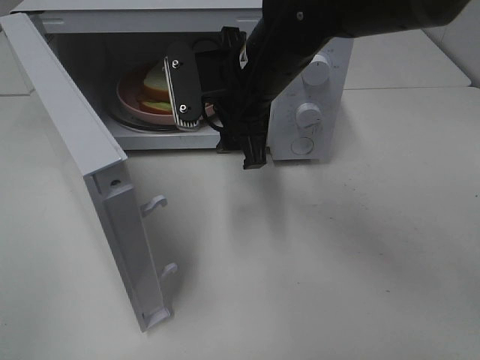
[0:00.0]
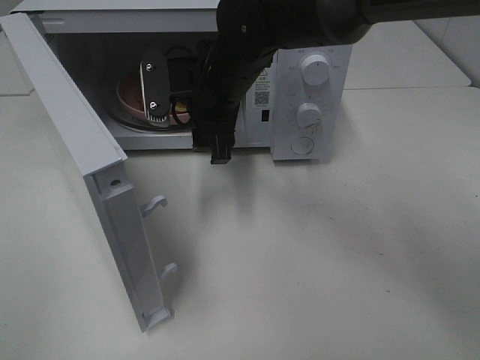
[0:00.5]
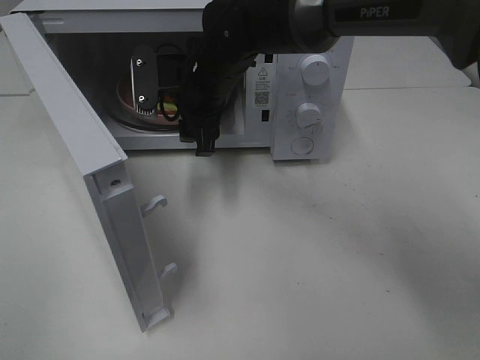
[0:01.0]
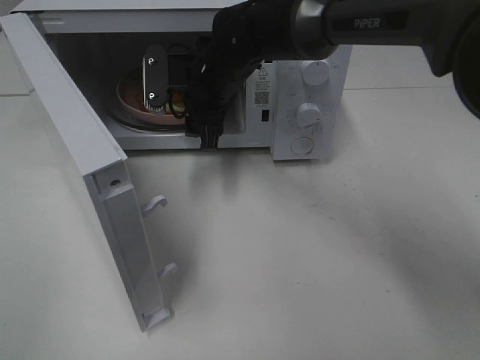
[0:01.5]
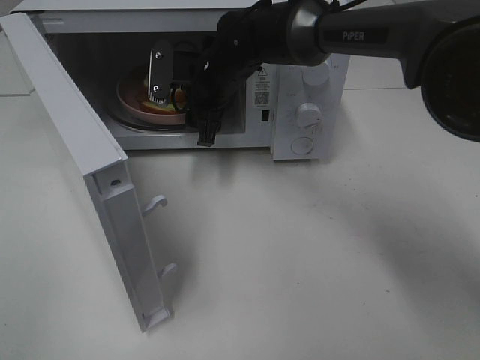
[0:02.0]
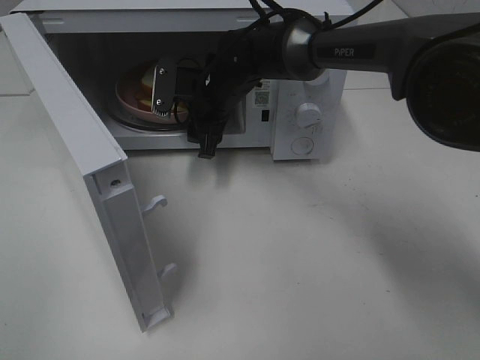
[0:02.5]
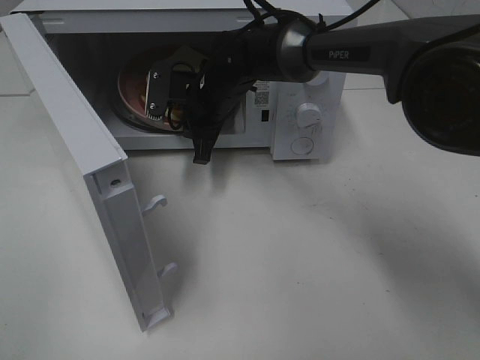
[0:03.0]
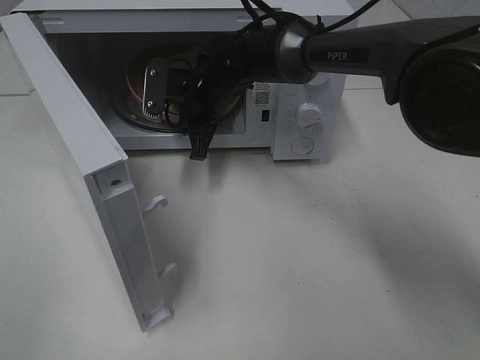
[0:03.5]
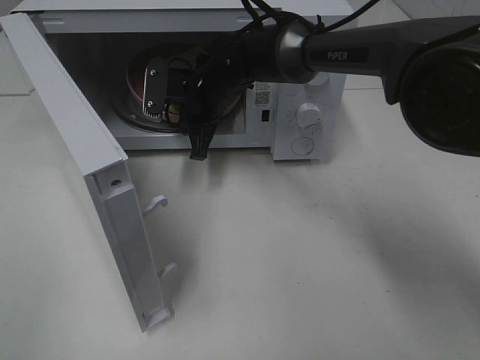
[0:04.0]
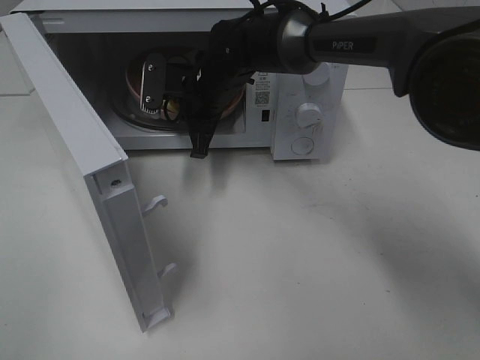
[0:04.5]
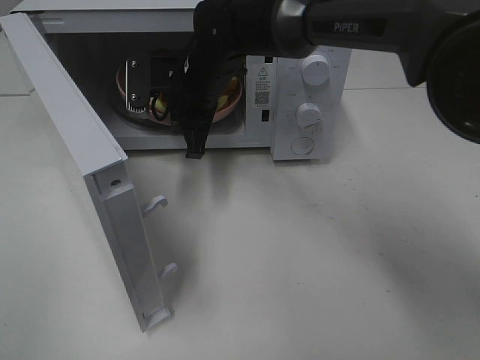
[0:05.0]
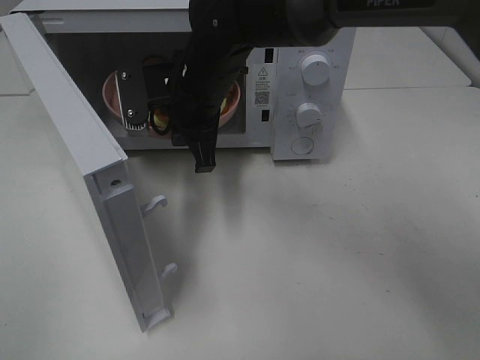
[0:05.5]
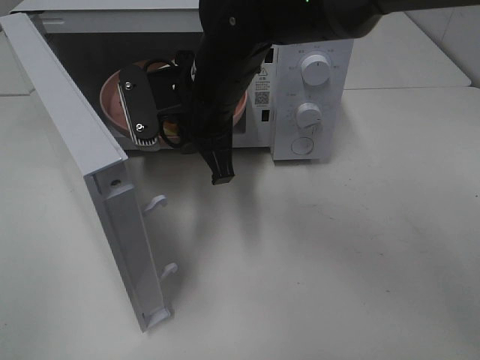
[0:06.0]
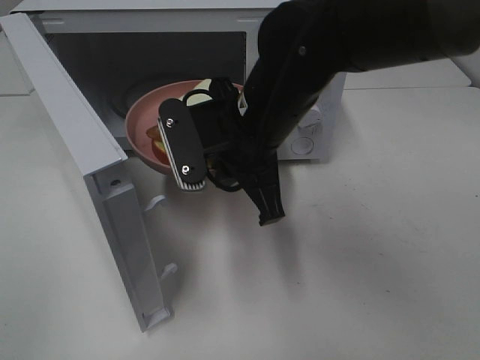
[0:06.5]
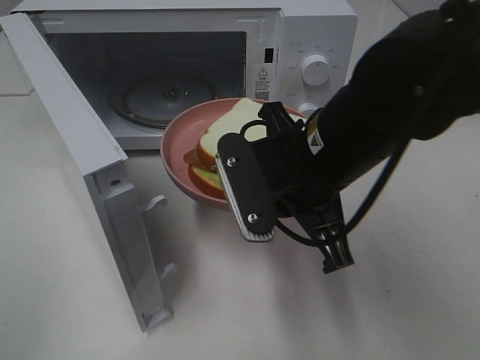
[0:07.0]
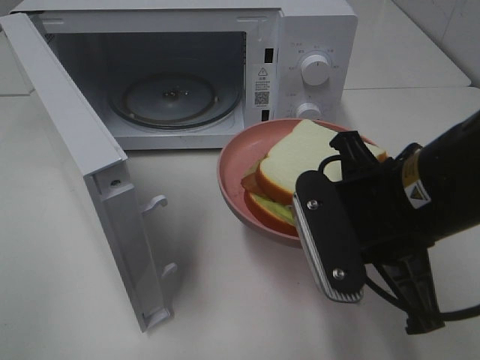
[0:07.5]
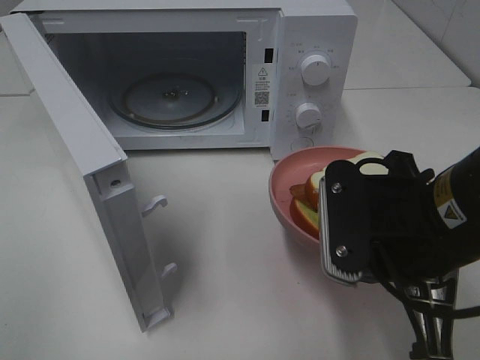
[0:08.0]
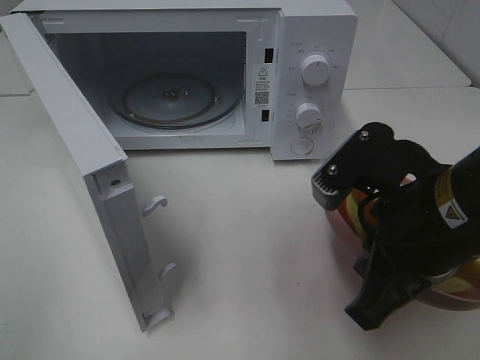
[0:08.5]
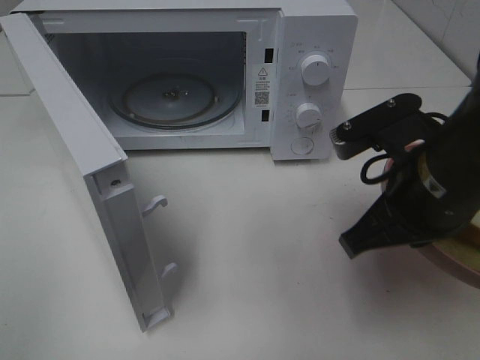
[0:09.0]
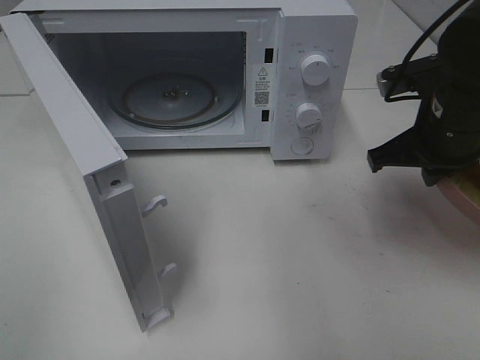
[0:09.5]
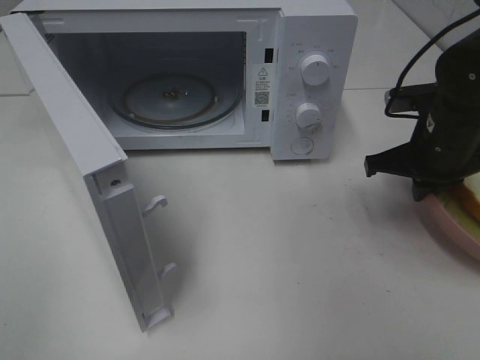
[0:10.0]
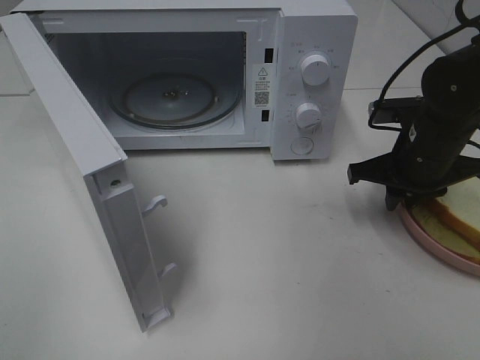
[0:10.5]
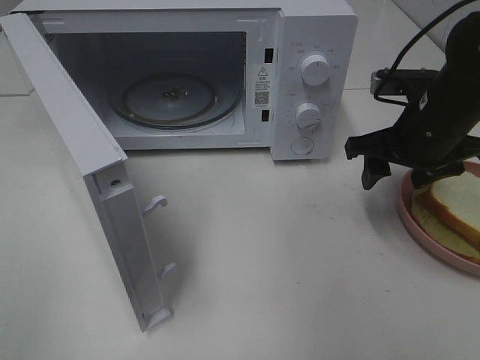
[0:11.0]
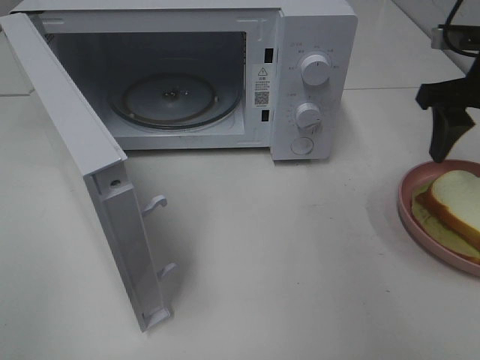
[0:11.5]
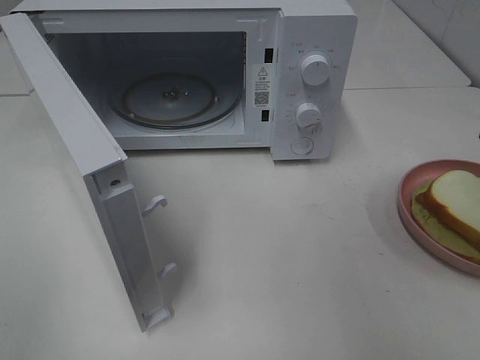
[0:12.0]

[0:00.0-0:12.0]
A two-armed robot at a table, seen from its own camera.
Task of the whole recording: Heat Sandwich.
Step, 0:00.0 to 0:03.5: Right hand: grab the plate with the sandwich.
Step, 0:04.0 to 0:11.0: Right hand: place the plate on the table.
0:00.0 to 0:02.0: The right gripper is displaced forward and downward by roughly 15 cm.
0:02.0 to 0:04.0: The right gripper closes.
0:04.0 to 0:06.0: The right gripper heads backward and upward, covering approximately 15 cm.
0:06.0 to 0:08.0: The right gripper shifts some 25 cm backward and to the right.
0:08.0 to 0:10.0: The right gripper goes roughly 20 cm forward and to the right.
0:10.0 to 0:12.0: The right gripper goes some 15 cm upward, backward and to the right, and opens.

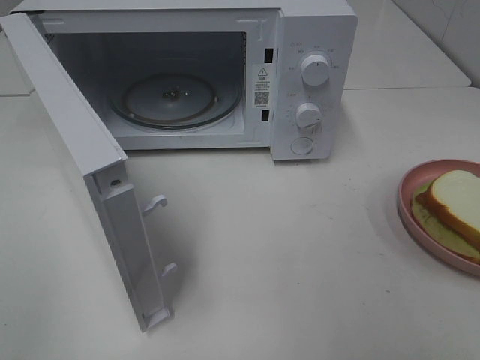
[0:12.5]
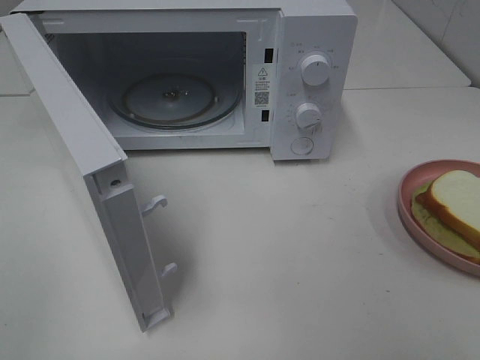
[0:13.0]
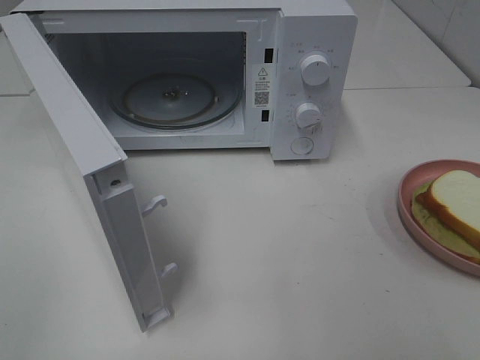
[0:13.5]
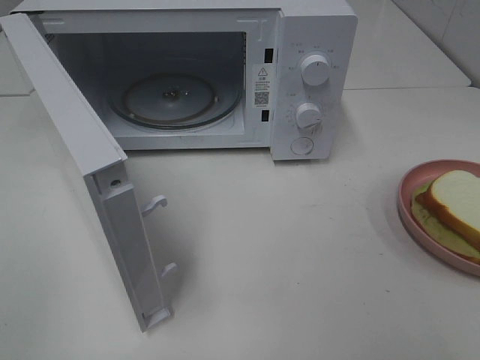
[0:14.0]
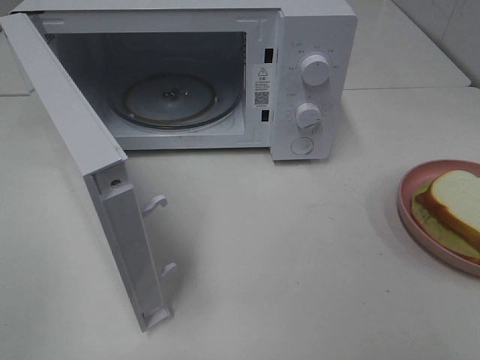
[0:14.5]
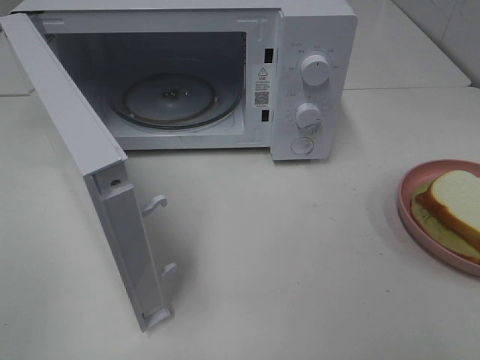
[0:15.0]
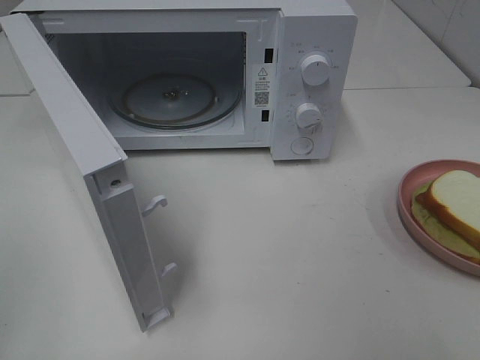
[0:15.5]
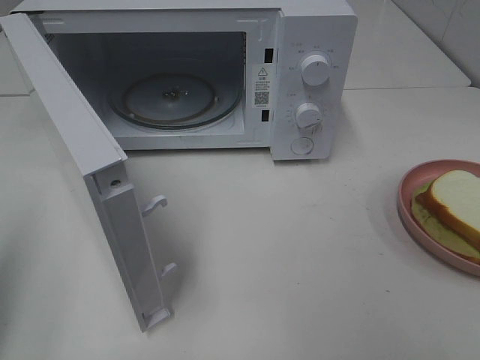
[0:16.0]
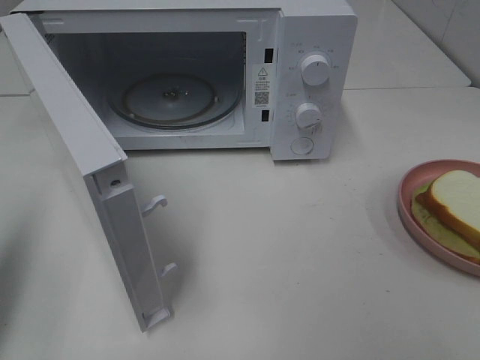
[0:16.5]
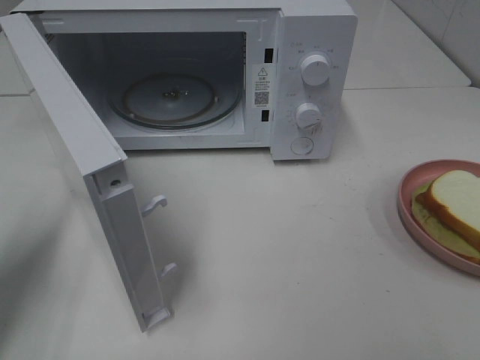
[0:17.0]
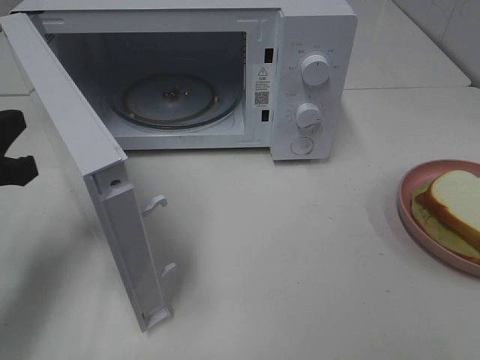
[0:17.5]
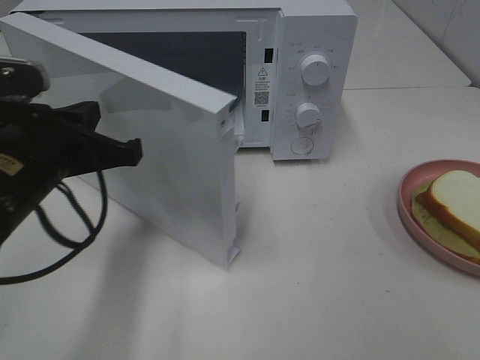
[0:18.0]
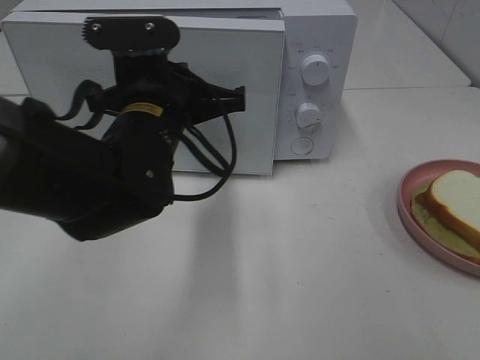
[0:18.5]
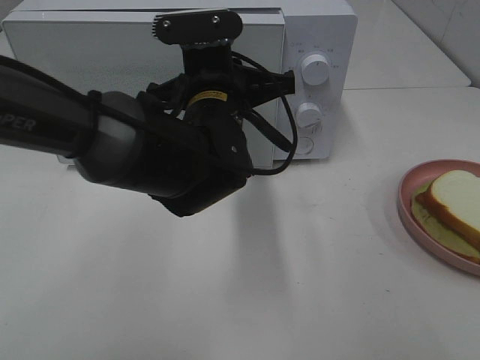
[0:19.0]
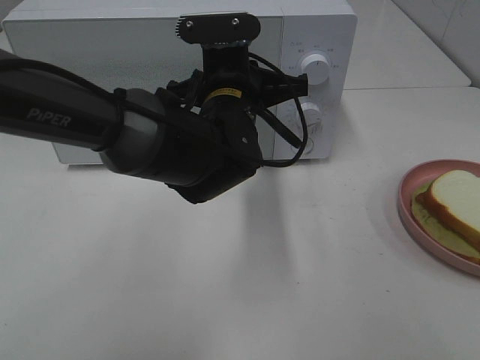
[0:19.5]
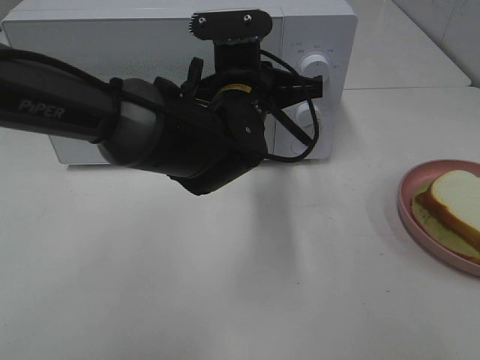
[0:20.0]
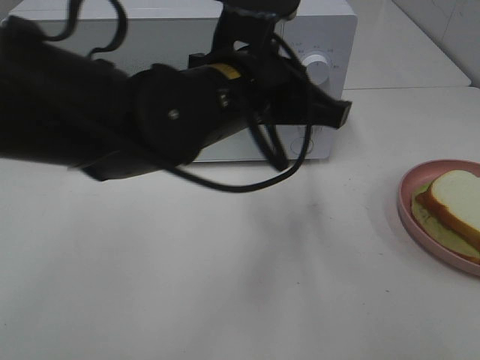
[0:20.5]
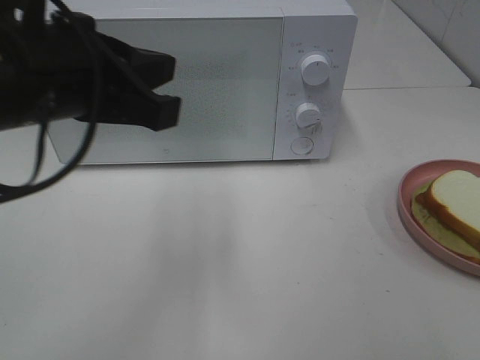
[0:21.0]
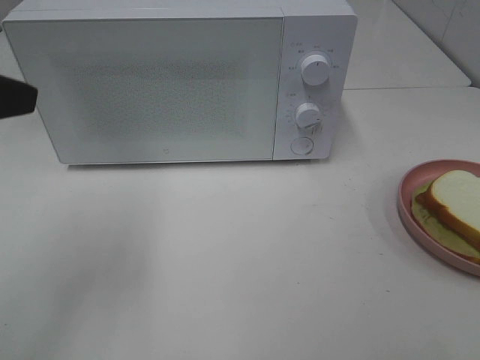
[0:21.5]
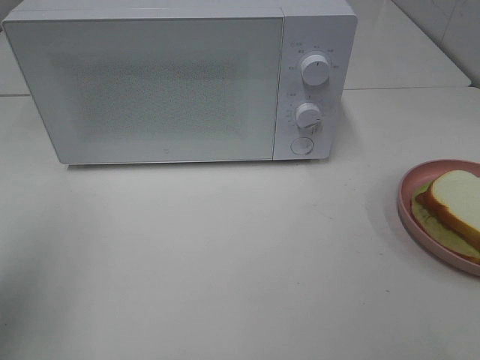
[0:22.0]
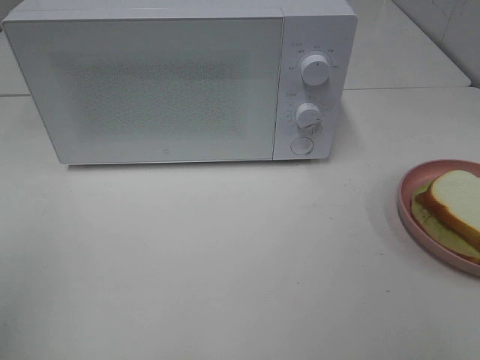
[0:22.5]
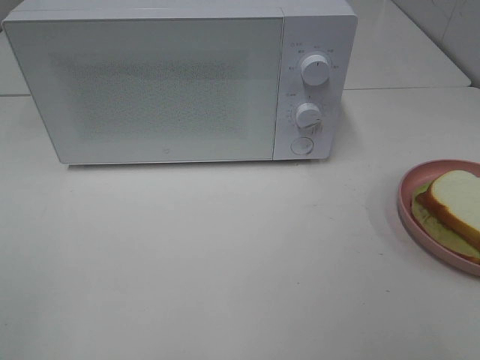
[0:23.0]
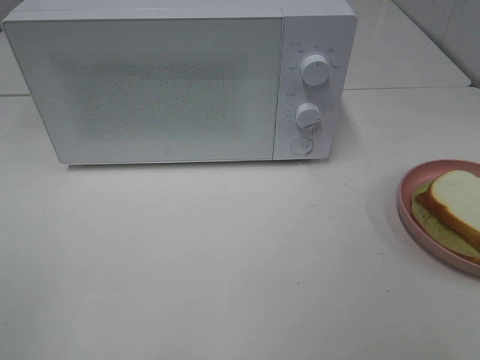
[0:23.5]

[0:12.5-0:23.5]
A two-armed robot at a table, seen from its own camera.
Task of the whole recording: Heat Sandwich.
Step, 0:12.5 to 0:20.5: Left hand: close the microwave door.
0:16.0 to 0:18.0: The left gripper is displaced to the right, forward and downward by approximately 20 cm.
0:18.0 to 0:20.0: The left gripper heads to the right and forward, covering roughly 20 cm.
0:20.0 to 0:21.5: The left gripper moves to the left, backward and upward, about 30 cm, and opens.
0:21.5 to 0:23.5: The left gripper goes approximately 20 cm backward and to the left.

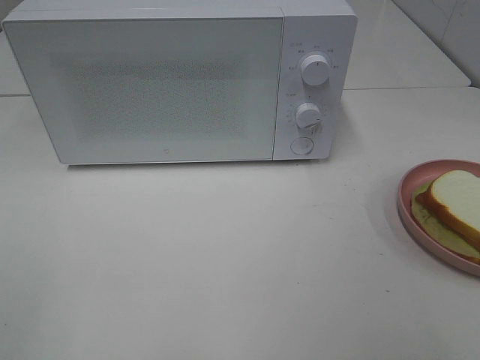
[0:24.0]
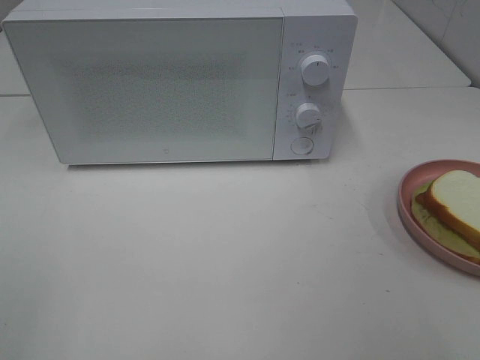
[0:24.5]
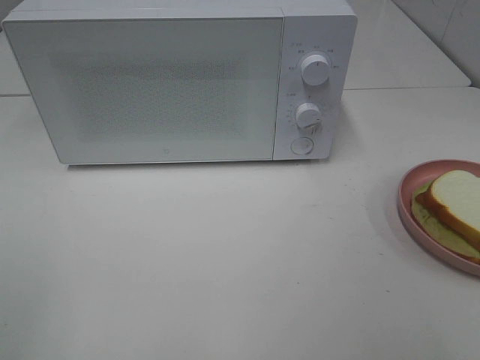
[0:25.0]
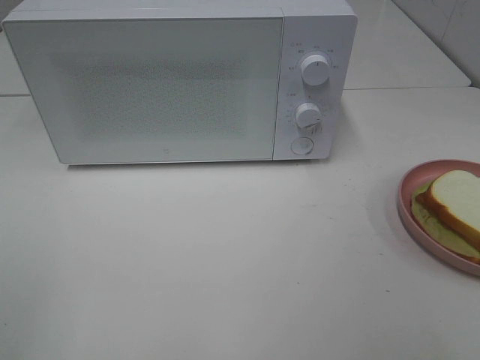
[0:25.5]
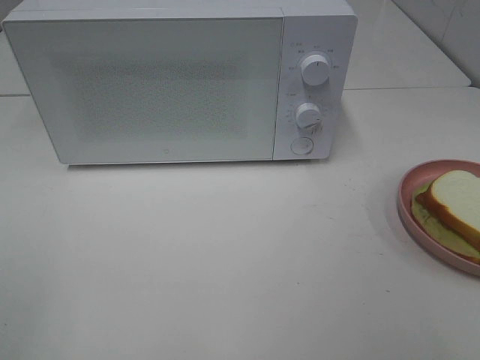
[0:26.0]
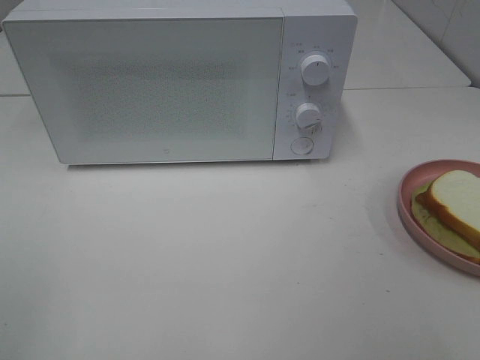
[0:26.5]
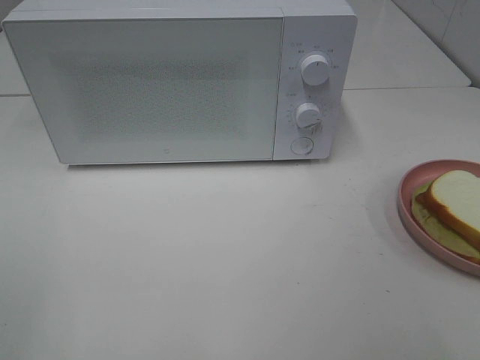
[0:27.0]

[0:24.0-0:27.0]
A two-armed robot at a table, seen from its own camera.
Task of the whole recording: Heat Sandwich.
0:24.0 to 0:27.0: The two grippers keep their place.
